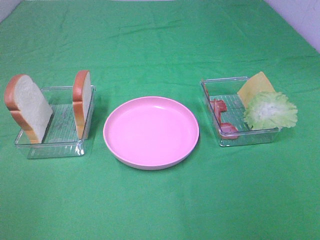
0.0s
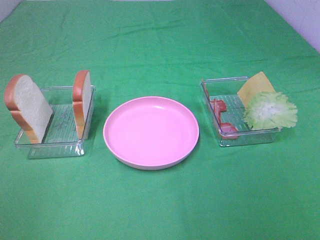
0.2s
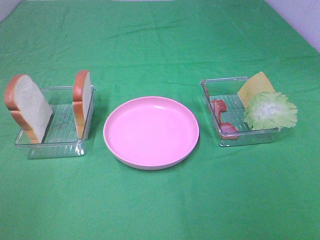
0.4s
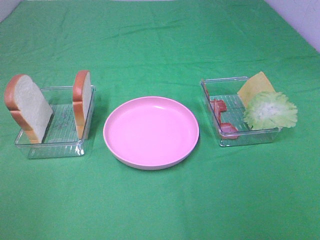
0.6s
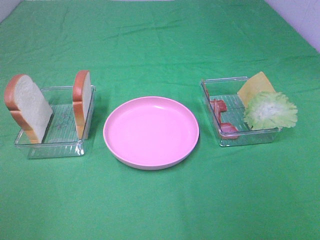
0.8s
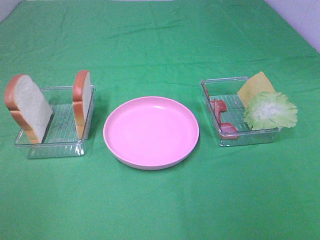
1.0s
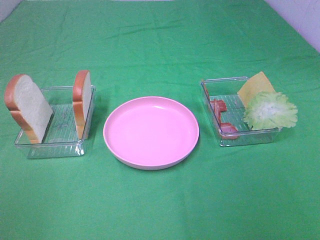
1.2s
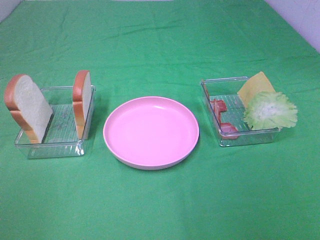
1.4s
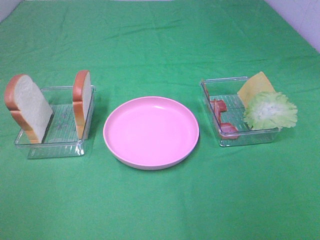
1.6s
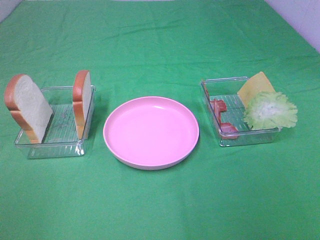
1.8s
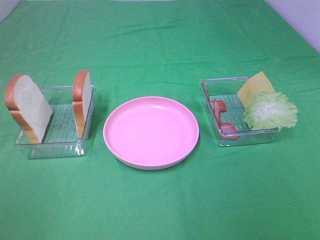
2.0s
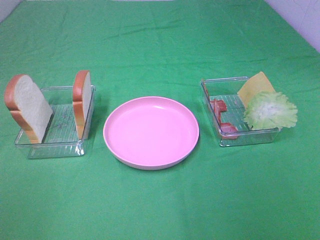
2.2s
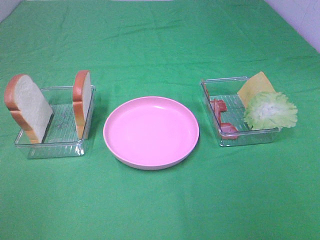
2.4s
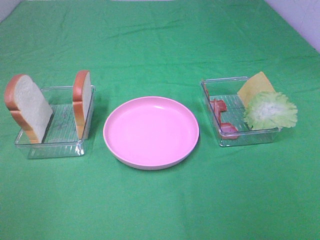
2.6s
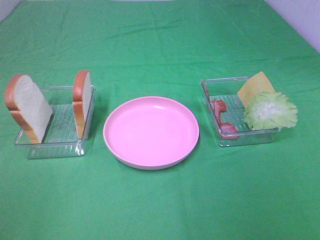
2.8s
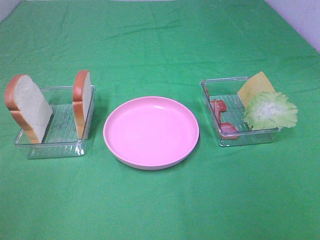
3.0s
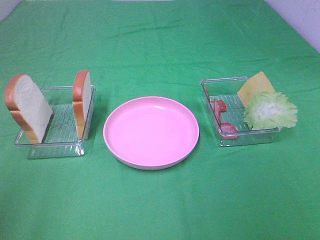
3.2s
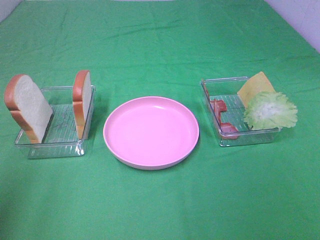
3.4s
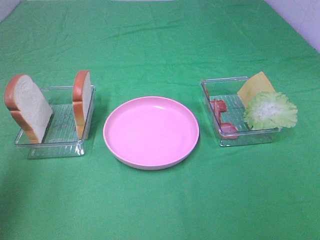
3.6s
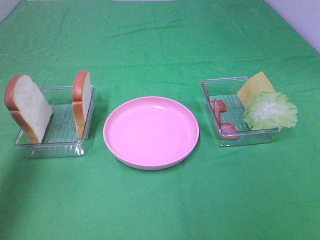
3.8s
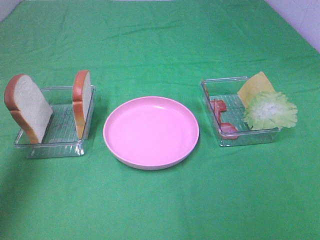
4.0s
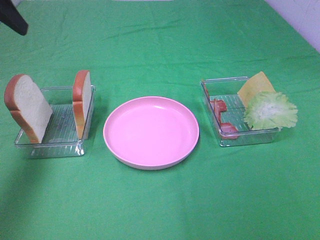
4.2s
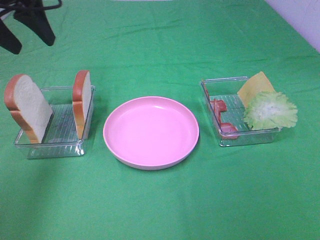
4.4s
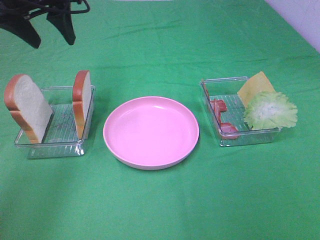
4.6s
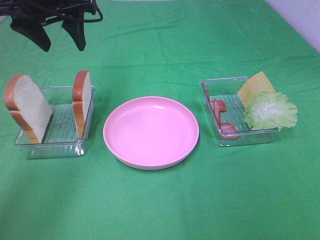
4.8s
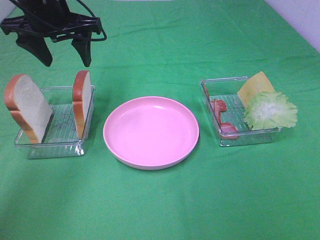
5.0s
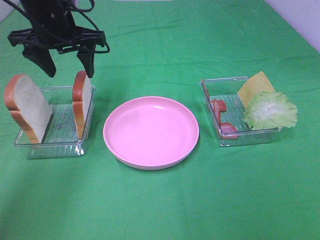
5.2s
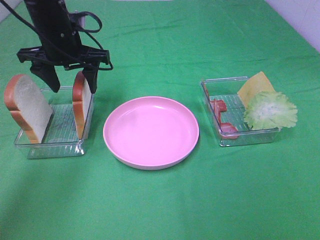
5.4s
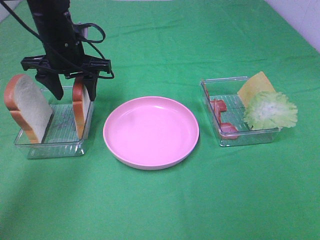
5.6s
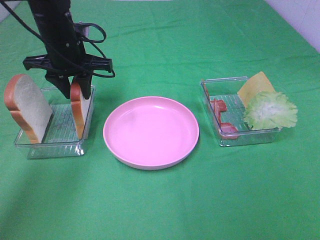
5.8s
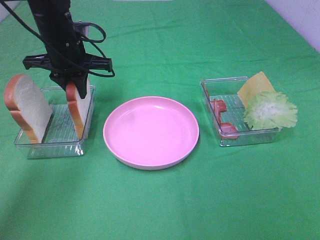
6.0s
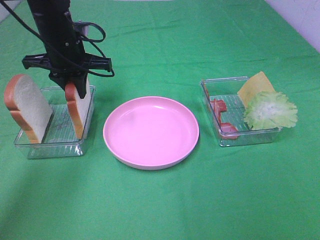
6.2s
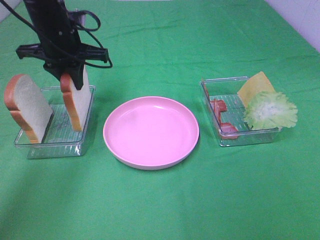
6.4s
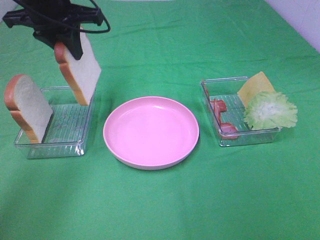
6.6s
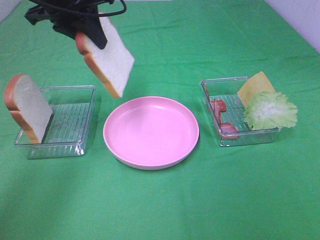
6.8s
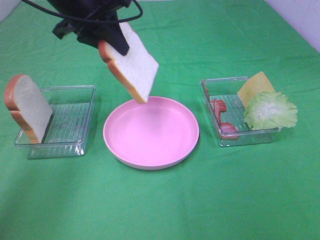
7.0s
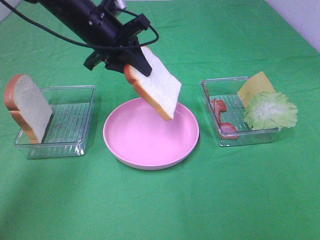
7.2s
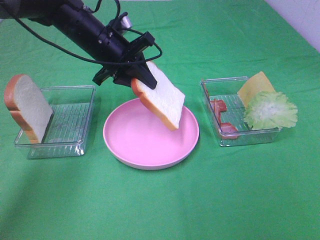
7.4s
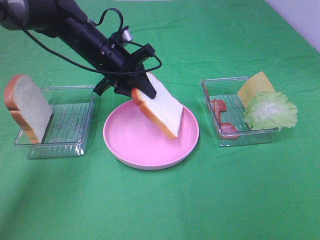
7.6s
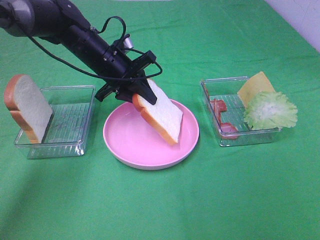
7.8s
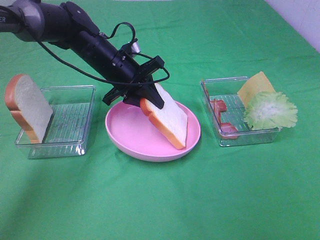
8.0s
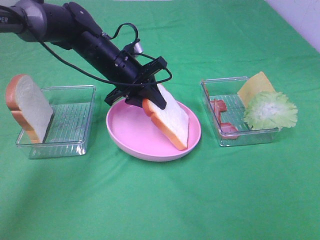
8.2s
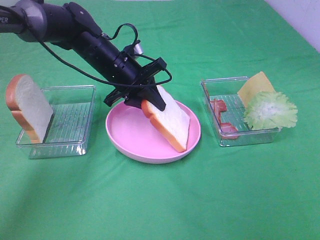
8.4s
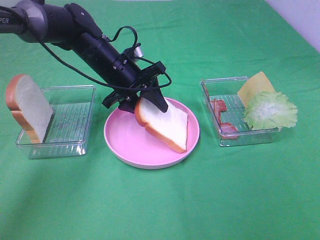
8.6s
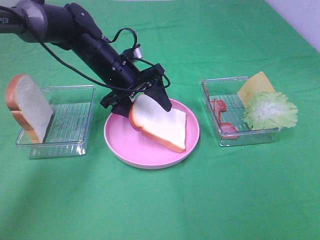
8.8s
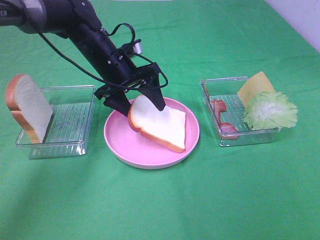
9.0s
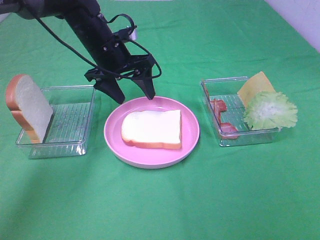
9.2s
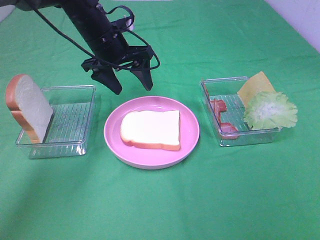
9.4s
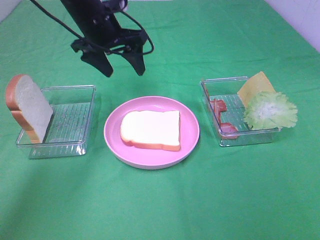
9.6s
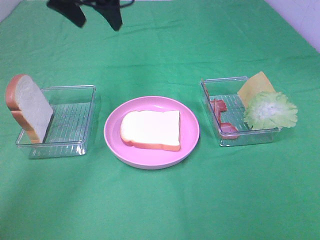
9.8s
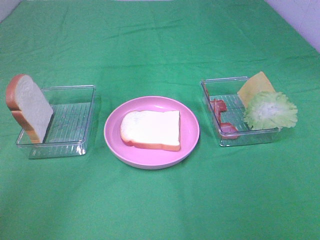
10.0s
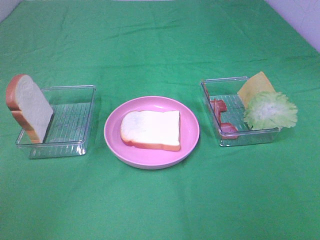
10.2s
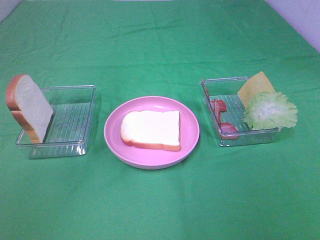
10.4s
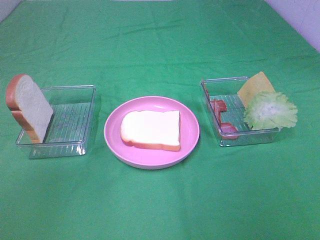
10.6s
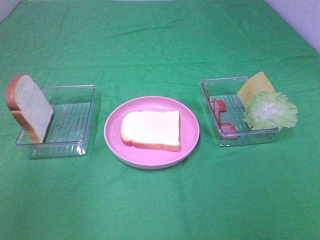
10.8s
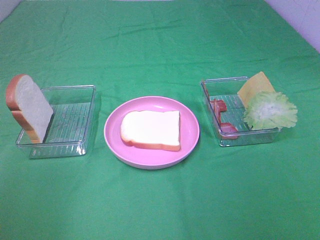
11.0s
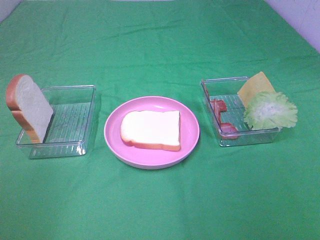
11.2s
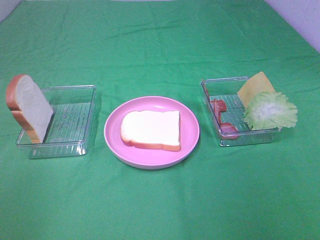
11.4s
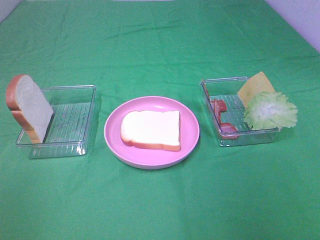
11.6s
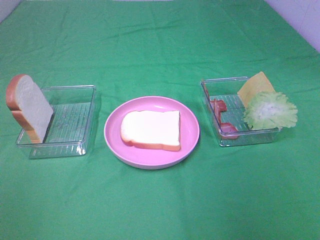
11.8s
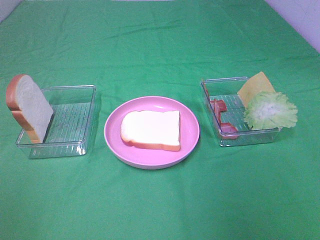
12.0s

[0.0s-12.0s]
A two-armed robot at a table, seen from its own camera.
Task of the whole recording: Make sandwiches.
Step, 0.0s to 5.8s: Left hand:grab the bread slice.
Step, 6.0s to 9.2s: Left hand:place the bread slice on the plate.
0.0s to 1.6s: Both grippers stay about where they are.
3.0s to 4.4s: The left gripper travels forward by roughly 35 cm.
4.4s to 6.0s: The left gripper is displaced downward, forward and to the right by about 15 cm, and closes up.
6.0s to 7.6s: The left gripper heads to the right, covering about 5 cm, and reaches some 10 cm upward, then returns.
7.6s to 9.0s: The left gripper opens up.
9.0s to 10.4s: The left gripper is displaced upward, backward and to the left by some 35 cm.
10.4s to 12.0s: The left gripper moves backward and downward, approximately 30 cm.

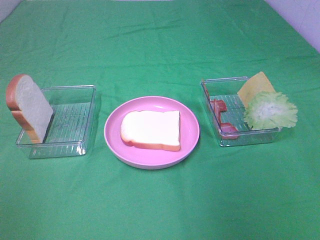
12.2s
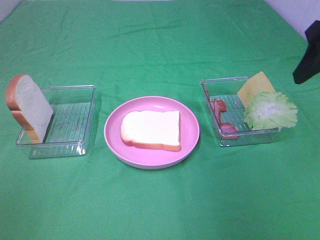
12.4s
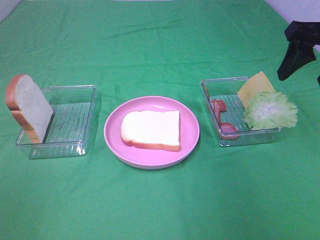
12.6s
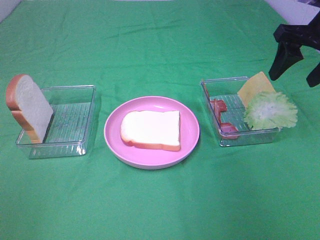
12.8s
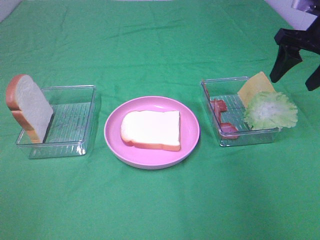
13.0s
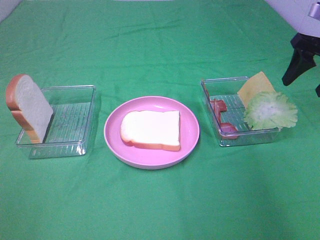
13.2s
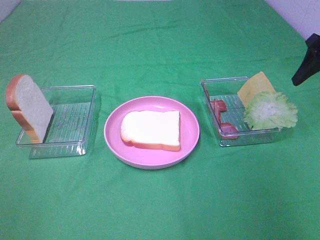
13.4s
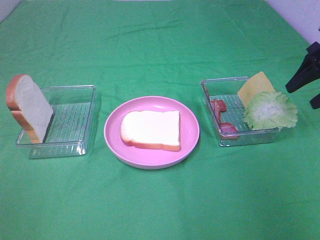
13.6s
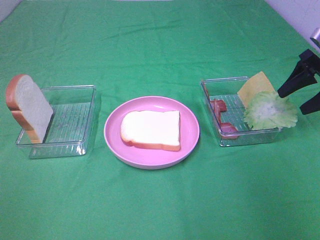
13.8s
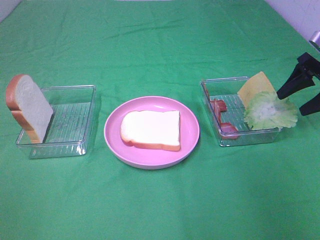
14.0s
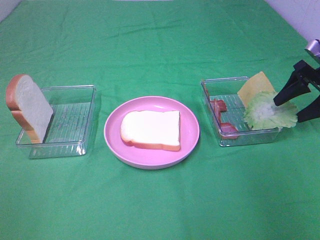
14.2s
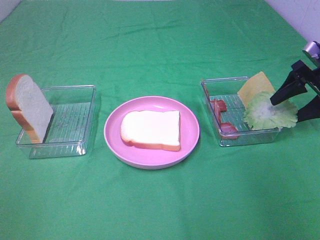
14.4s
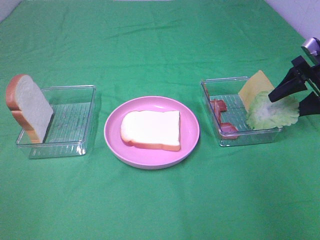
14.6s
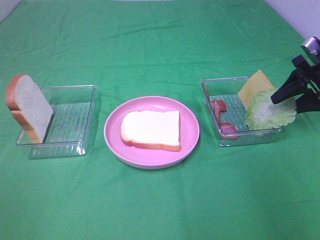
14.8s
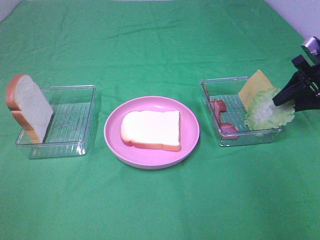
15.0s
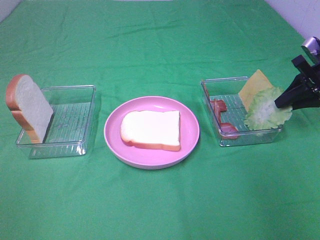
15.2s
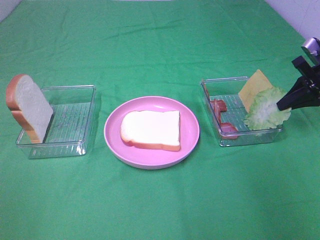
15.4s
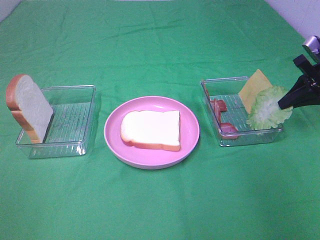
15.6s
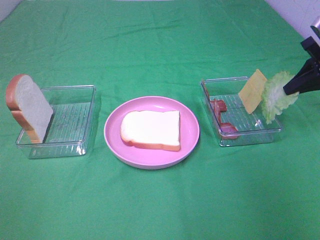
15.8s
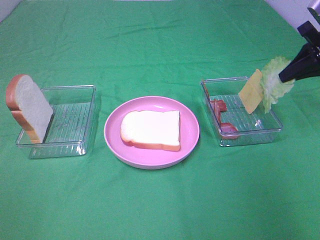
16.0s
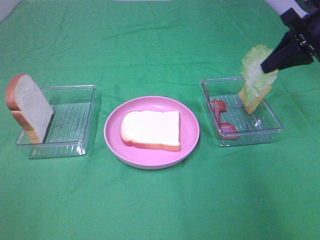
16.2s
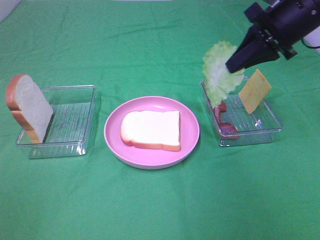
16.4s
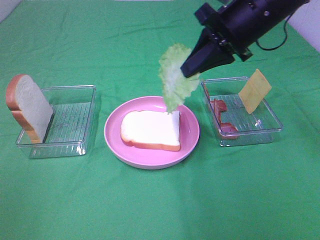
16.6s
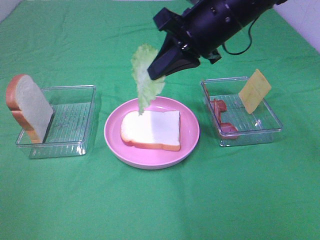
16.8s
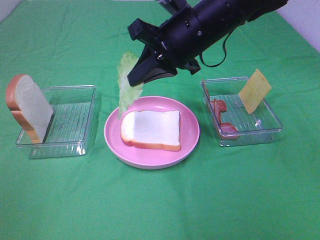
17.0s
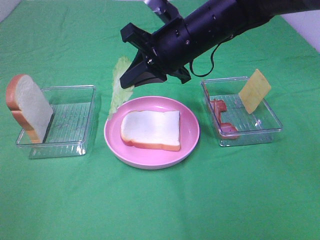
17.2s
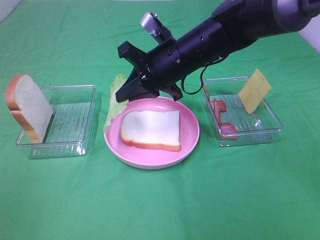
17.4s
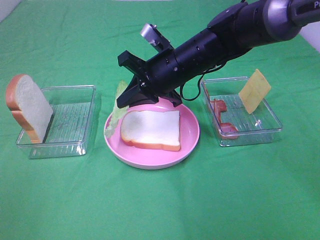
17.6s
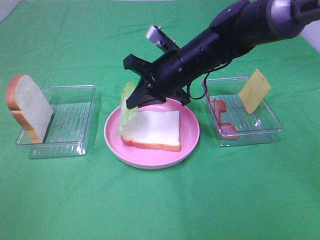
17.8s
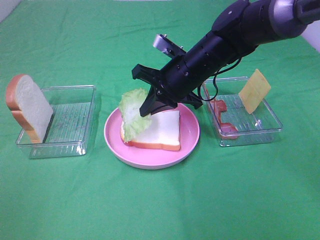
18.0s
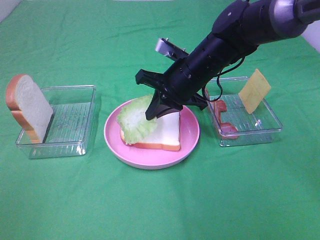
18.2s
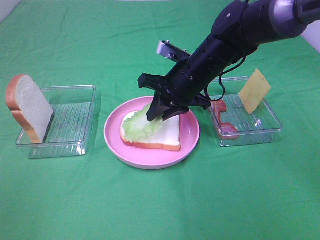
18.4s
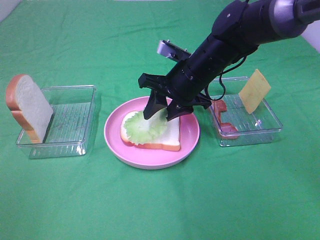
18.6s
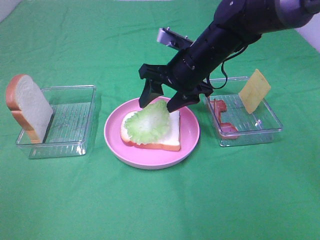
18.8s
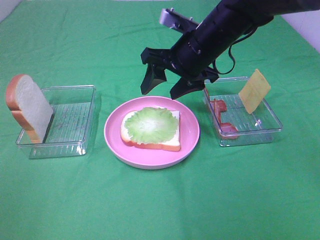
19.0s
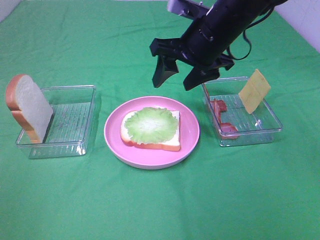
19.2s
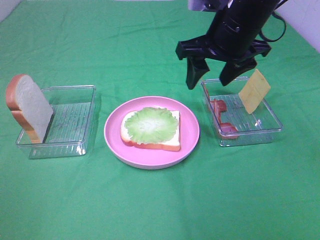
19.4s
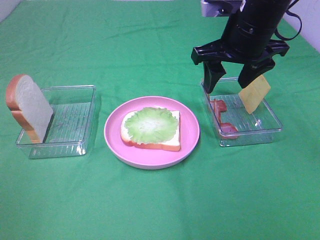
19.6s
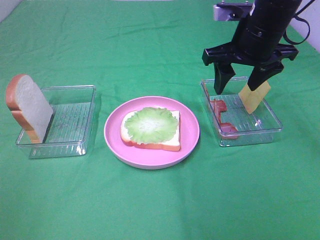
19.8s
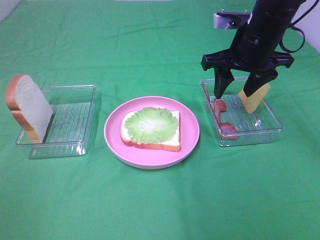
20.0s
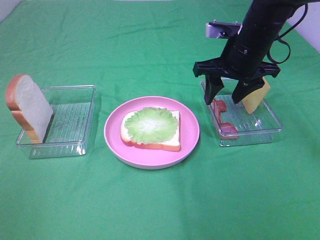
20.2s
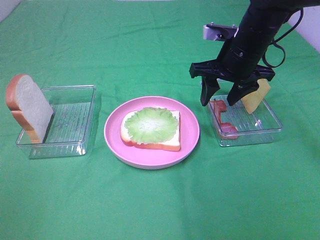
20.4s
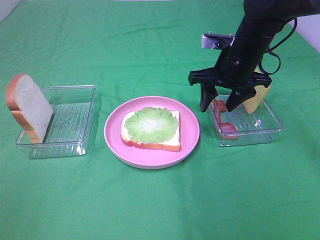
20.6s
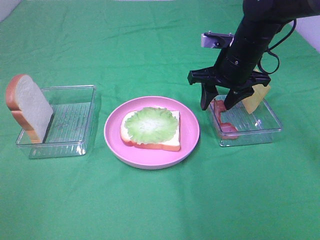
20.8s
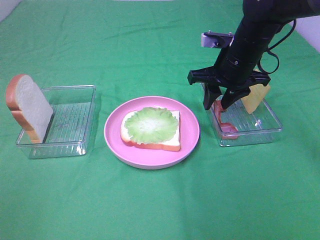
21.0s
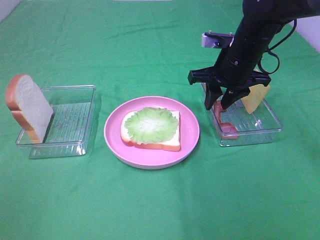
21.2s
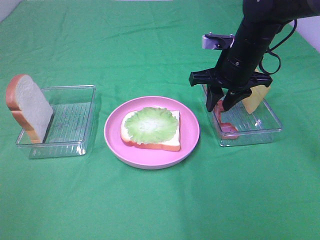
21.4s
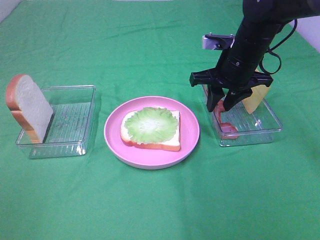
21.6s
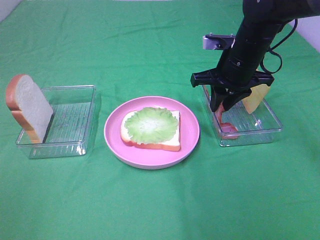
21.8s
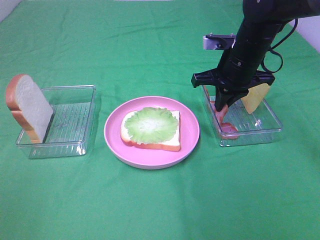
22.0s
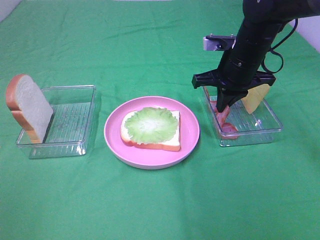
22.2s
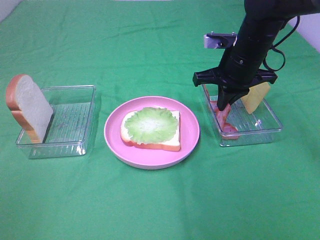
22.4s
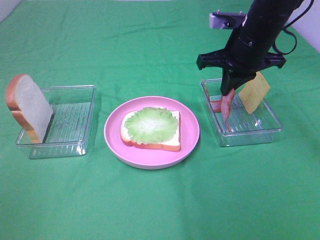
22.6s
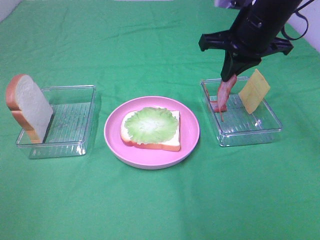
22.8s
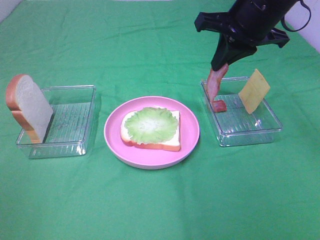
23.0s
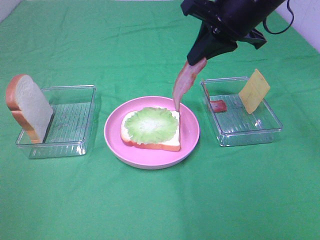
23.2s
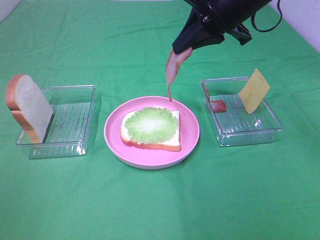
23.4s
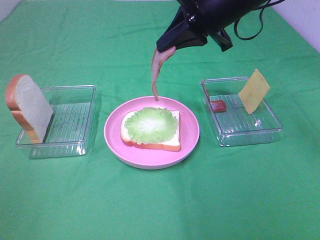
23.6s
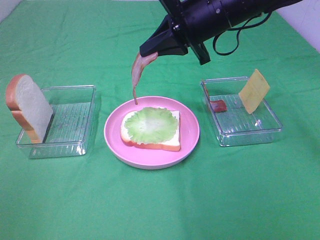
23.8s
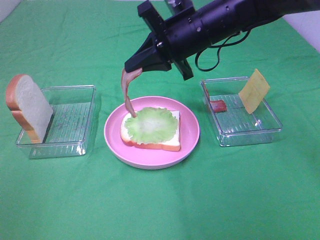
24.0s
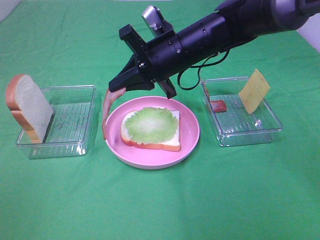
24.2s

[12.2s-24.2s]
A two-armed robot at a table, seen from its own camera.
Task of the whole recording: Make sandwiches.
Step, 12.2s to 15.6s: Right hand:grab the lettuce slice.
Step, 15.8s to 18.8s: Right hand:place the lettuce slice on the bread slice.
Step, 19.0s to 22.2s: Right hand:grab the bacon.
12.2s to 13.8s: The right gripper travels forward, downward and to the right by about 25 cm.
13.8s to 15.2s: The right gripper closes its fingers.
15.2s to 16.6s: The right gripper goes about 25 cm to the left and upward.
16.6s to 18.2s: The right gripper travels downward and to the left by approximately 15 cm.
18.2s to 19.8s: The right gripper travels to the right and upward by approximately 10 cm, and opens.
19.8s to 21.2s: The right gripper travels downward by some 5 cm.
21.2s to 22.6s: The right gripper moves about 5 cm, and closes.
22.6s to 24.2s: The right gripper goes approximately 10 cm to the left.
